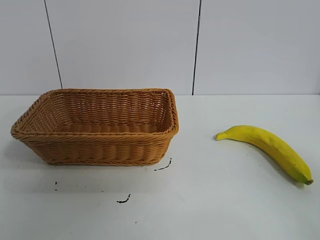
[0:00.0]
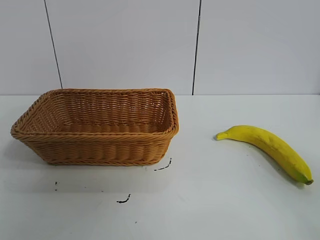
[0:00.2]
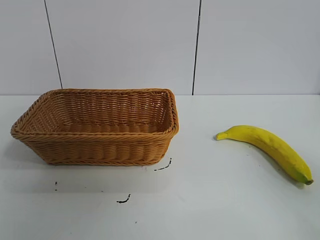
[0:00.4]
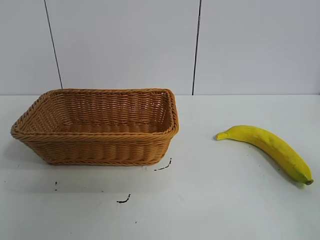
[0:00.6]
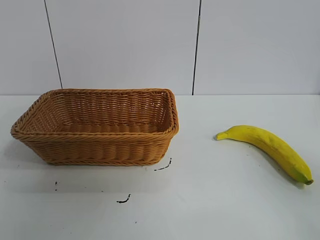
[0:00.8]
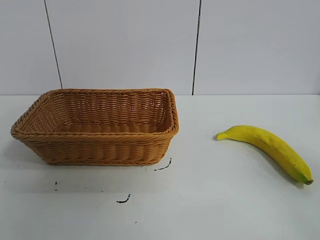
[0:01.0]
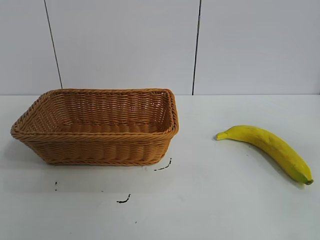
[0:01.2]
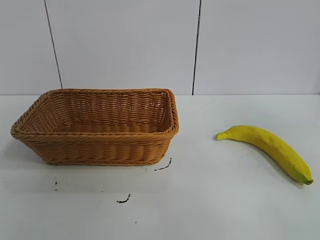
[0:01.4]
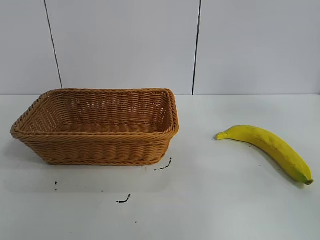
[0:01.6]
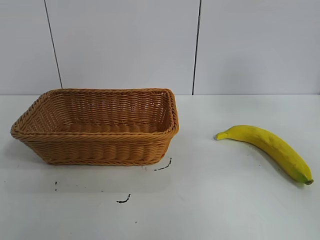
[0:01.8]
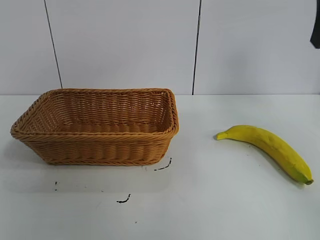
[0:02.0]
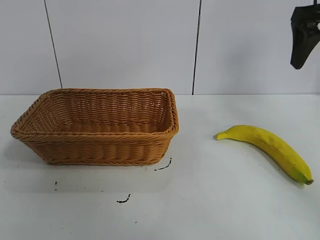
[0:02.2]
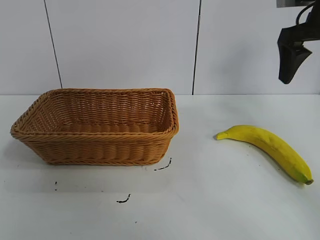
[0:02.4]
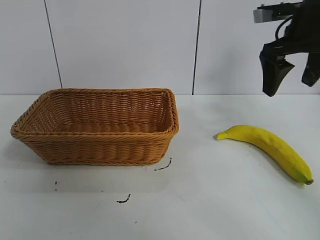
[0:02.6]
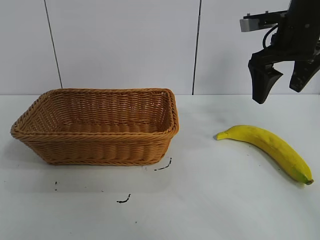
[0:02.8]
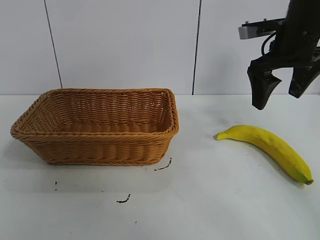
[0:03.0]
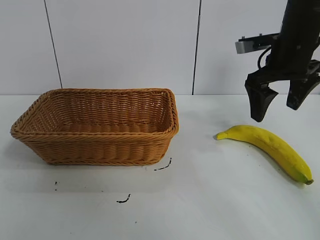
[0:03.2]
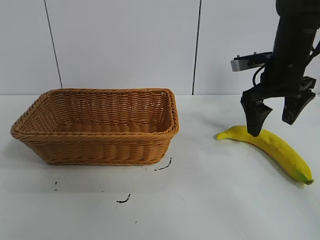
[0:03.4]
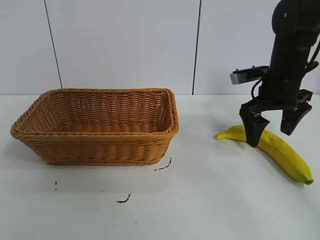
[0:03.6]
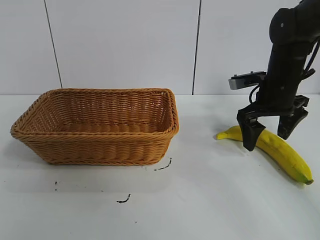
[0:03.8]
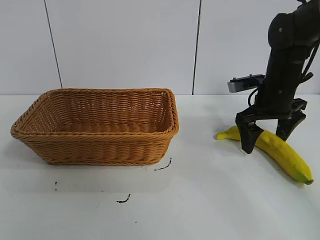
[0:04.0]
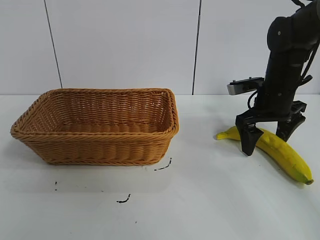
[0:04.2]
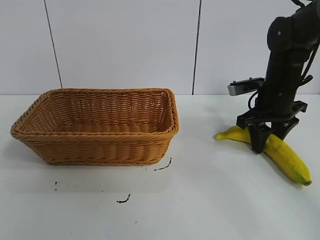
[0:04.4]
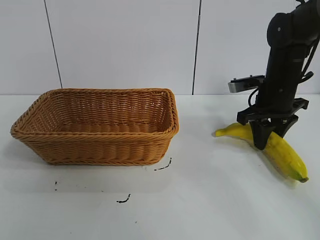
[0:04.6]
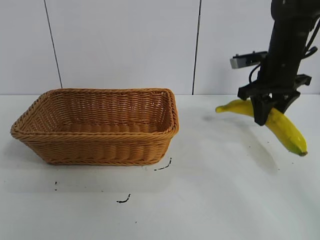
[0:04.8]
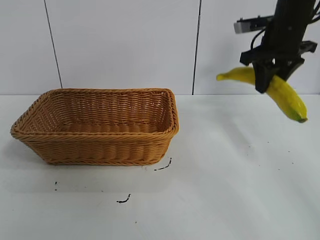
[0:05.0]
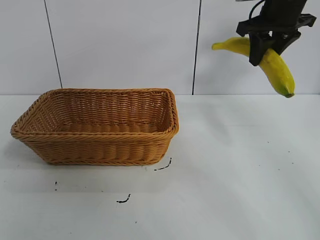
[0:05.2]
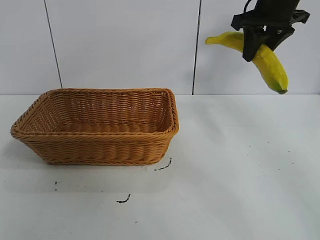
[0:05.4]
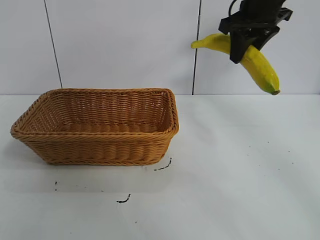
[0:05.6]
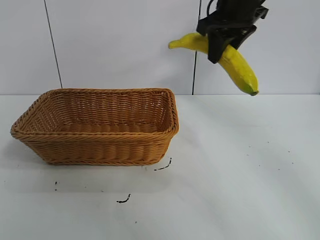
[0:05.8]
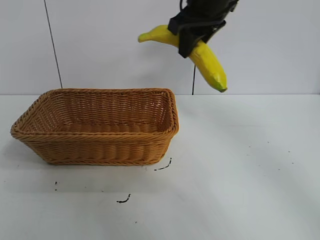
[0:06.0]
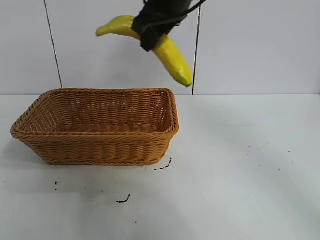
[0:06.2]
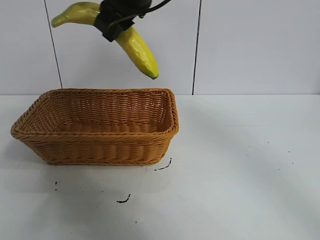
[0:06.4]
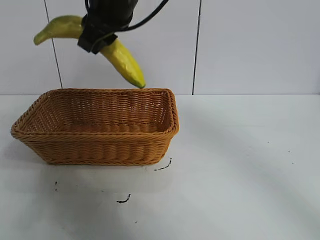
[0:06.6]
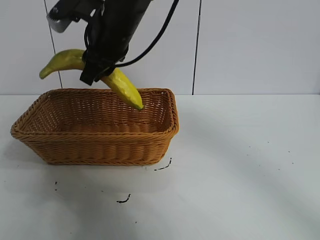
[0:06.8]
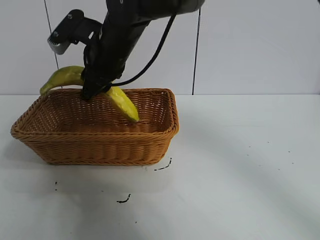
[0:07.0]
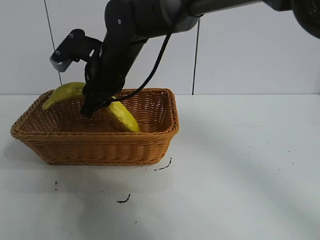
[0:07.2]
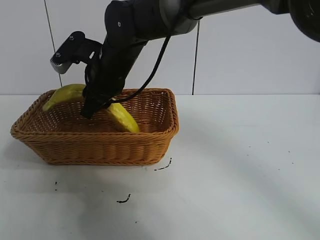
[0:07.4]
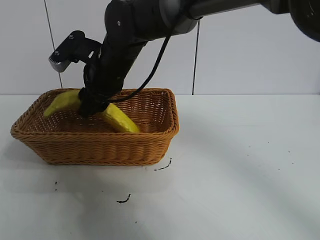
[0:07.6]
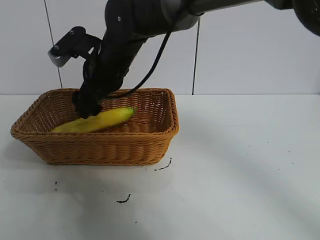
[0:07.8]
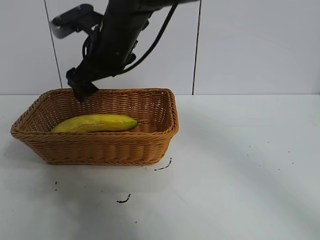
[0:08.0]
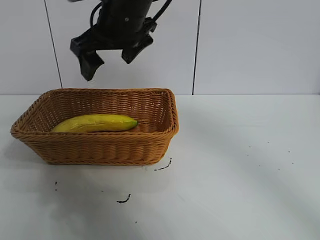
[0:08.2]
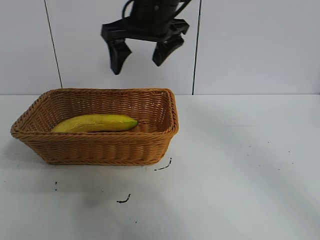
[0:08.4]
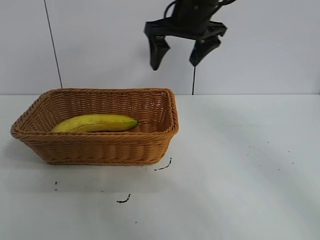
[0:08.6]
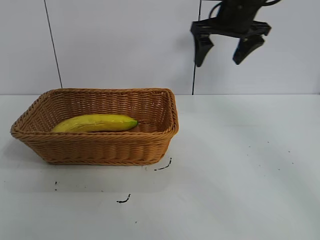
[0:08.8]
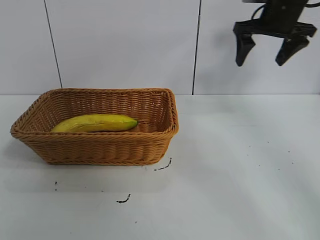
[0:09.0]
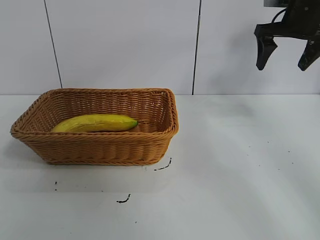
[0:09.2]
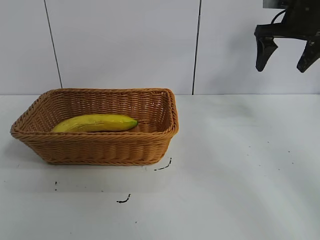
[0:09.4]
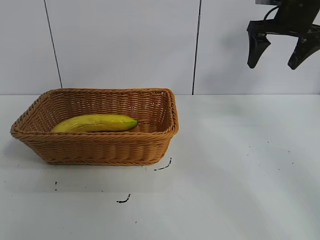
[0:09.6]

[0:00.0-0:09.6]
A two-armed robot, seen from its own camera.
Task of the whole recording: pick up the banana and put it into the basket.
Step, 0:01.0 to 0:04.4: Grasp the banana with right gripper.
Step, 0:04.6 to 0:07.8: Place the banana in the basket with right gripper.

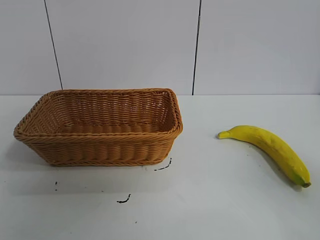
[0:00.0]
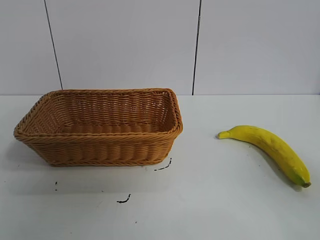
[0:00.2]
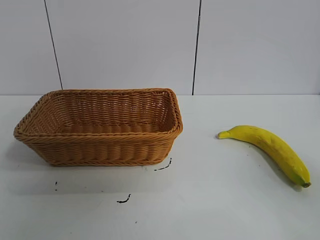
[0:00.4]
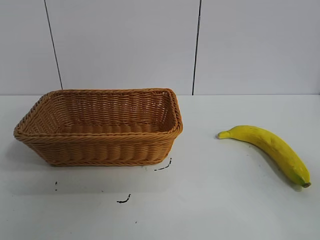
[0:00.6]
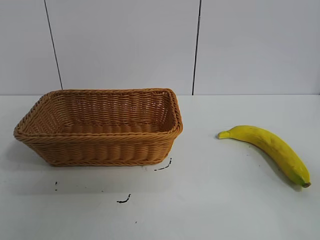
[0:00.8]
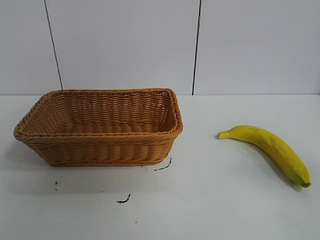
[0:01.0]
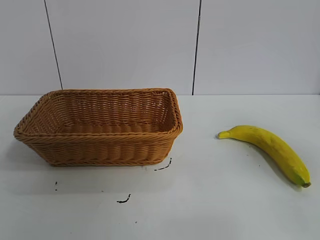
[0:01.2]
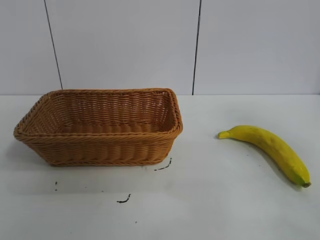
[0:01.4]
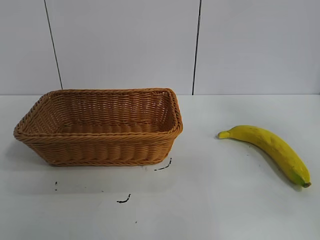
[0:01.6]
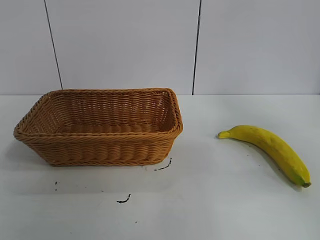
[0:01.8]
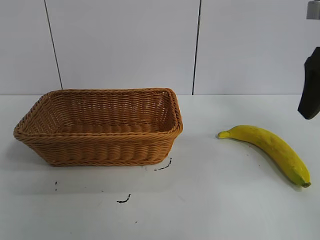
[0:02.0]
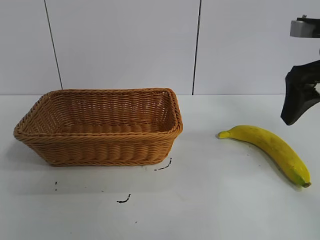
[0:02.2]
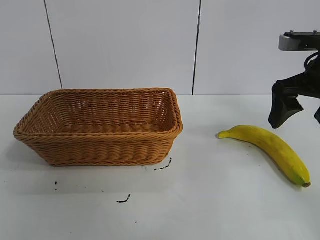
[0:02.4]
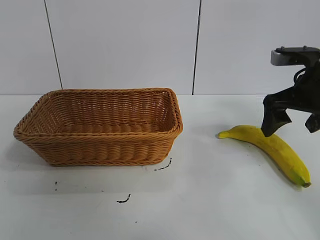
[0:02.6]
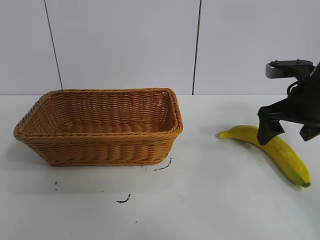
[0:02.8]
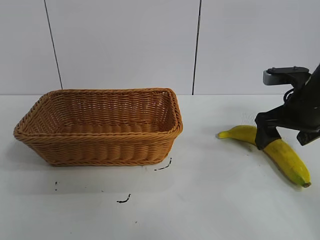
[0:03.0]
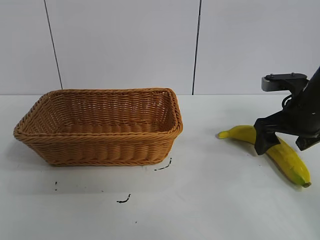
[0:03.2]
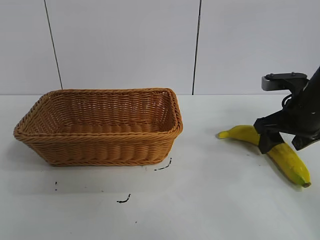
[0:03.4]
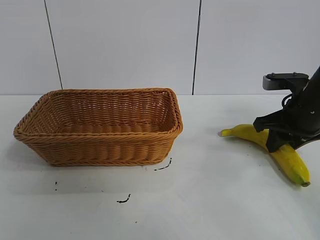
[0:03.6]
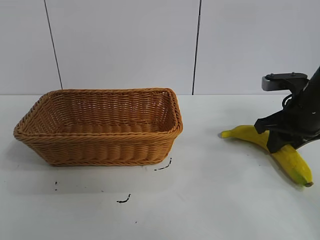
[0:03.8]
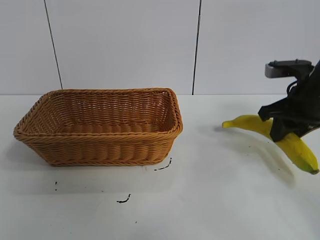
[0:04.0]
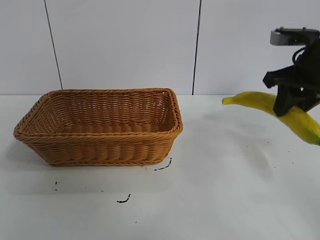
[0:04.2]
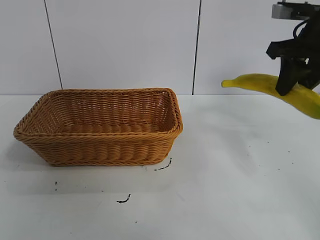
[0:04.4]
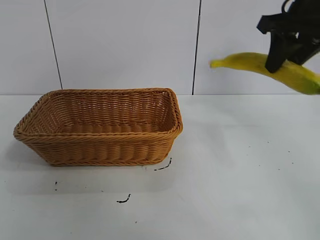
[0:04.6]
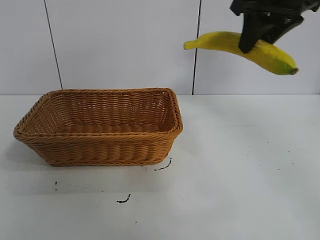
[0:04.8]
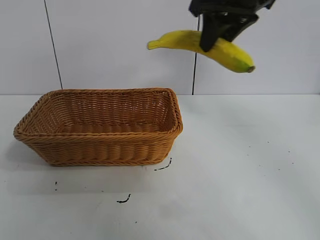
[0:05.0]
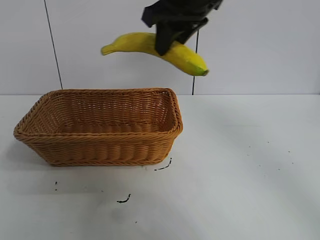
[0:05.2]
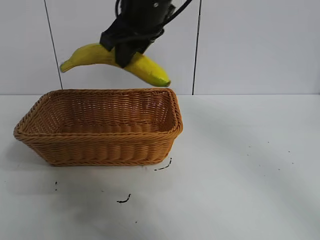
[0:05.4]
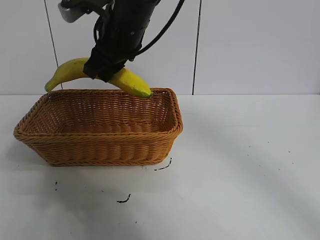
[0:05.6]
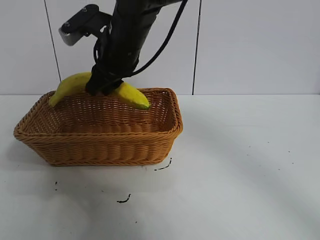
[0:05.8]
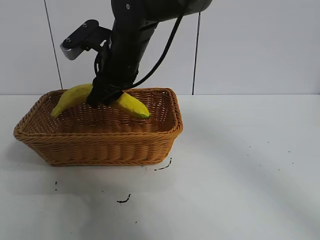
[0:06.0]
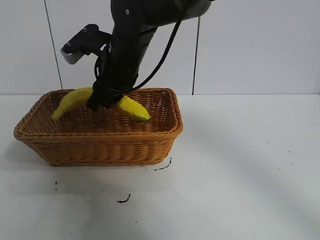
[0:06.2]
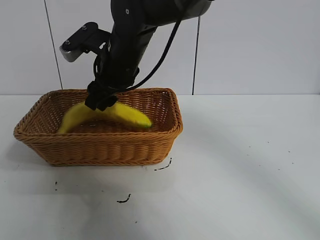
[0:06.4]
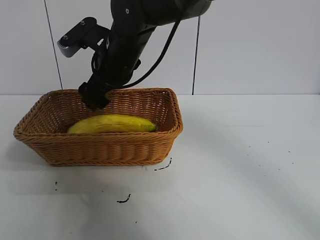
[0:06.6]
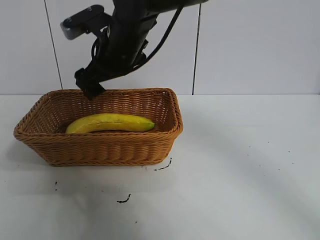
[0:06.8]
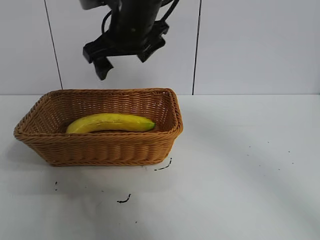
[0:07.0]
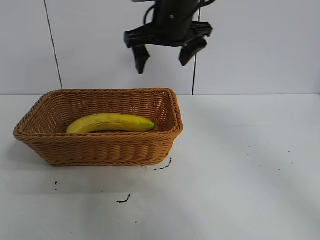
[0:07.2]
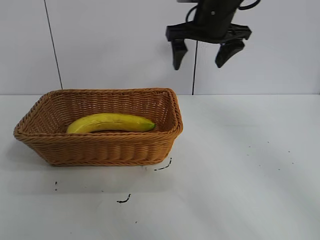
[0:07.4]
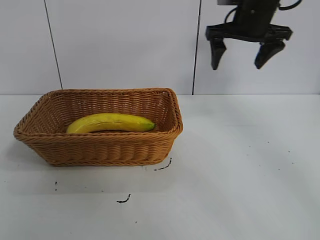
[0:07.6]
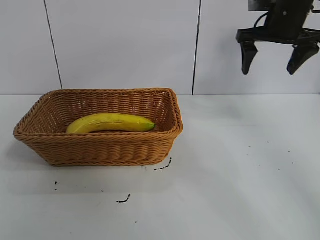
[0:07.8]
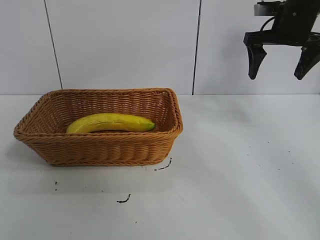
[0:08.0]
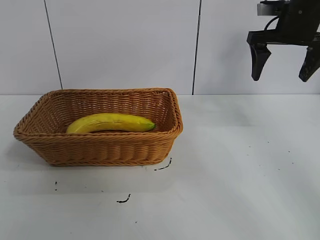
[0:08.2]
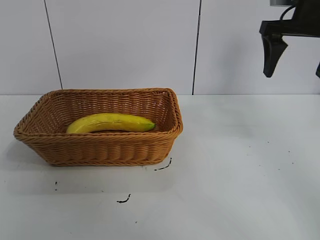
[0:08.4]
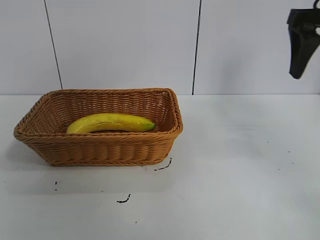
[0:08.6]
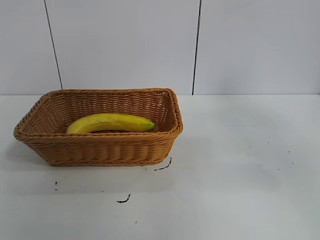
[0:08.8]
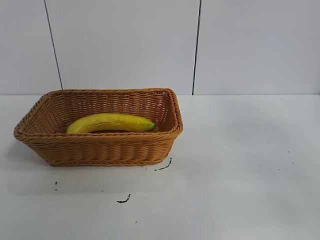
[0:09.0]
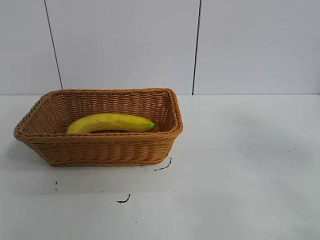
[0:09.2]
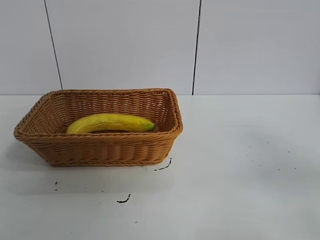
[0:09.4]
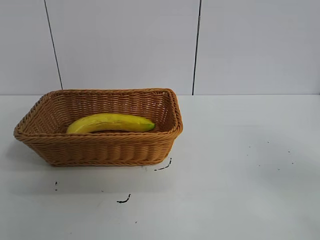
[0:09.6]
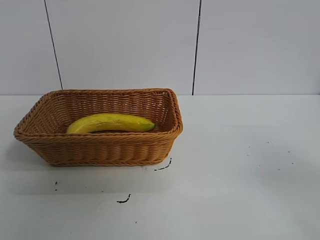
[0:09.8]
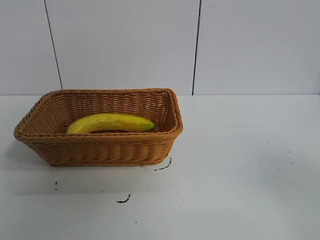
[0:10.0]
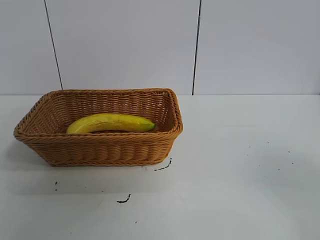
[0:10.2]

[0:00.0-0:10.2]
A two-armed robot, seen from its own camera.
Task of the whole recording: pick up the banana and put it into the basket.
Step, 0:00.8 to 0:03.6: Grasp the banana with right gripper.
Step, 0:03.8 to 0:06.6: Place the banana in the basket with right gripper.

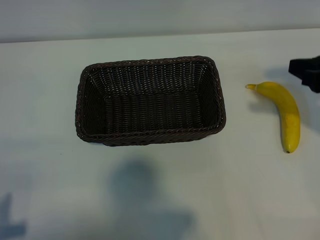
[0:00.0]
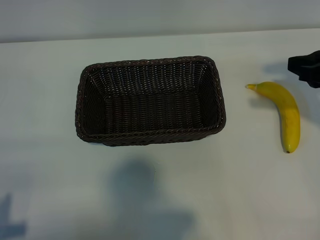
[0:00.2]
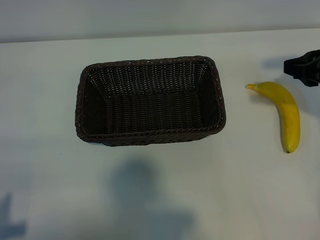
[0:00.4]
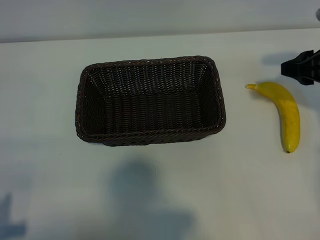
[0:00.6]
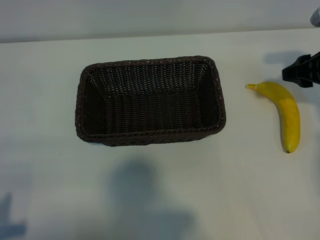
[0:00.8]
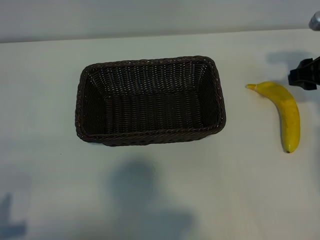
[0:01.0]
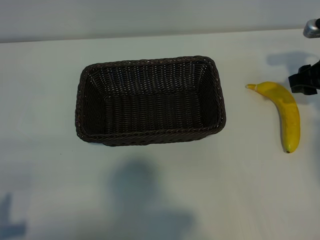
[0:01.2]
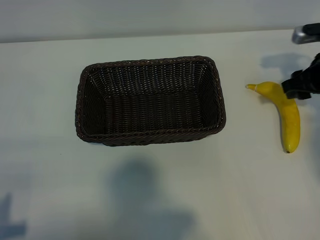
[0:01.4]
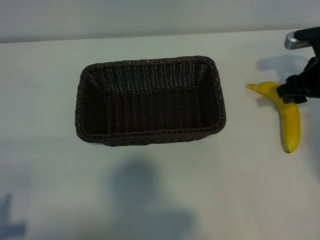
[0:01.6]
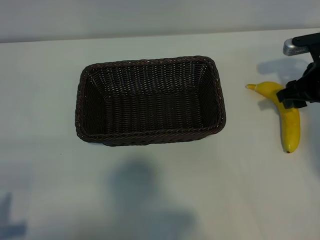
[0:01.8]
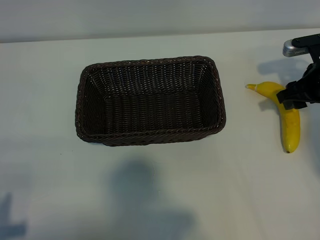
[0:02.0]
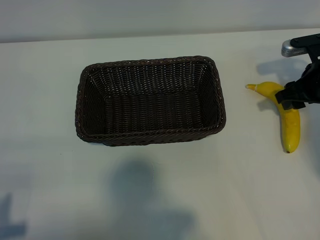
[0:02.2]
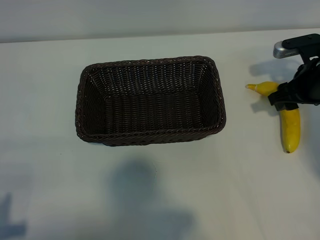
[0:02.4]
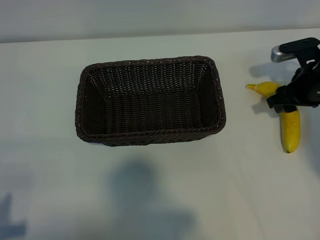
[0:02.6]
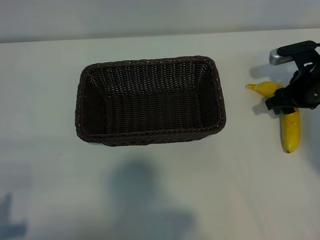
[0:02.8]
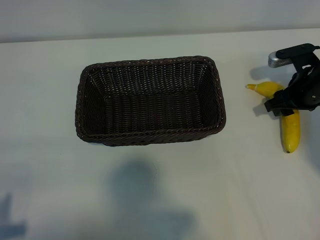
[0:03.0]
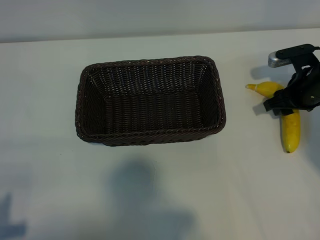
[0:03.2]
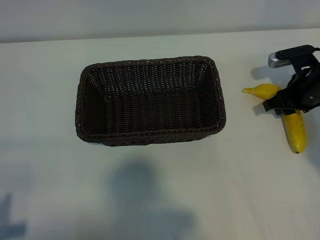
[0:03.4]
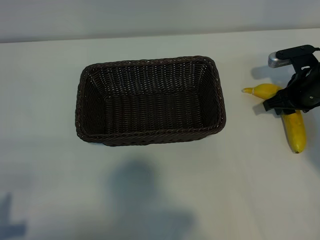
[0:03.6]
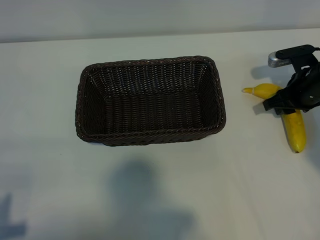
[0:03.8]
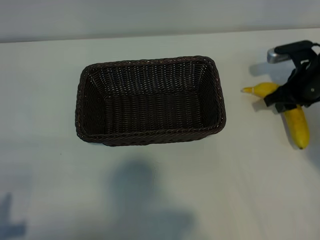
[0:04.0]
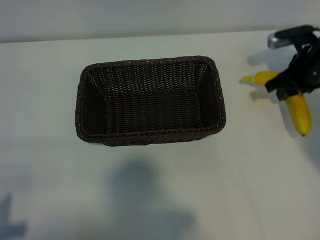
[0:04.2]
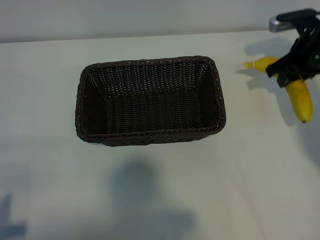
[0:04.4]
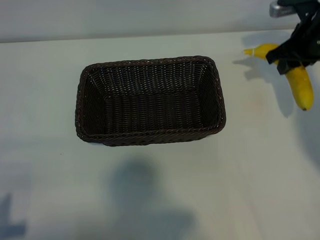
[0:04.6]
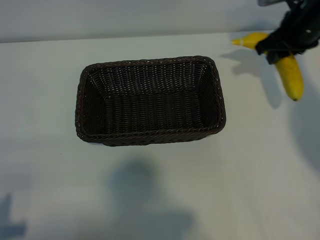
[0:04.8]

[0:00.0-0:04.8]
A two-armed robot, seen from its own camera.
Task of the whole recording: pick up the banana and put it into the basket.
Step, 0:00.0 to 0:03.4: Grasp the banana with right gripper.
